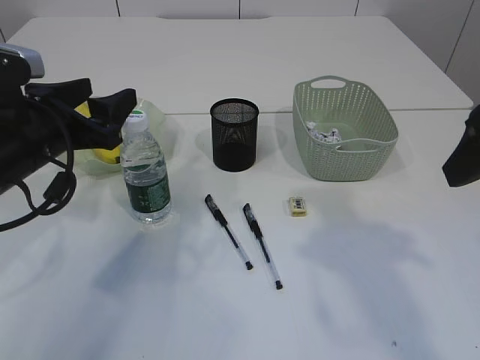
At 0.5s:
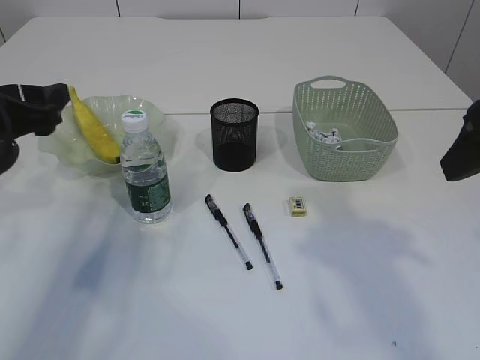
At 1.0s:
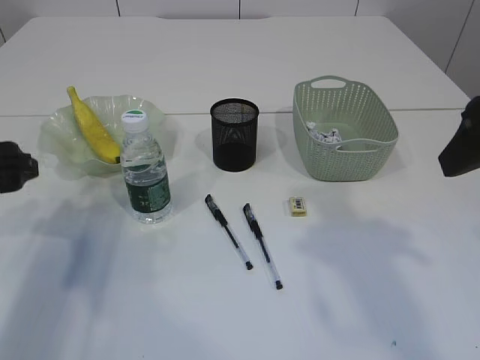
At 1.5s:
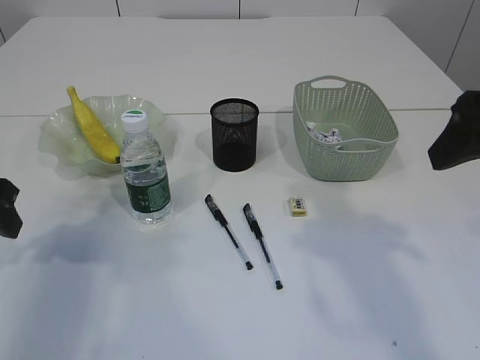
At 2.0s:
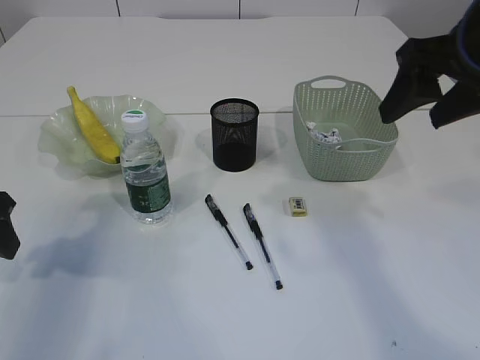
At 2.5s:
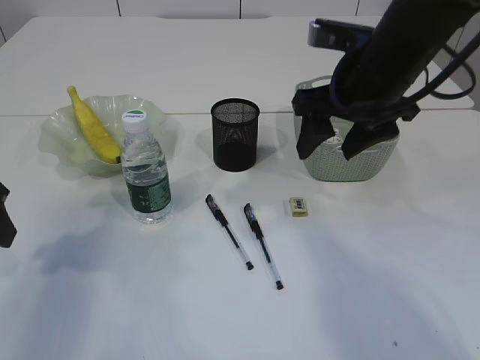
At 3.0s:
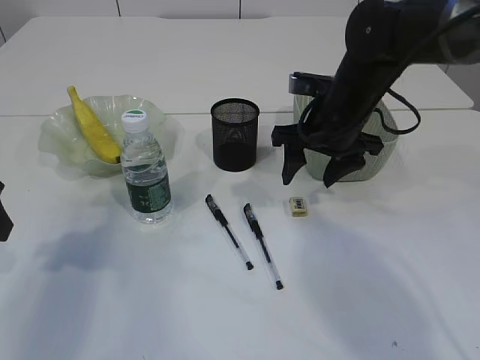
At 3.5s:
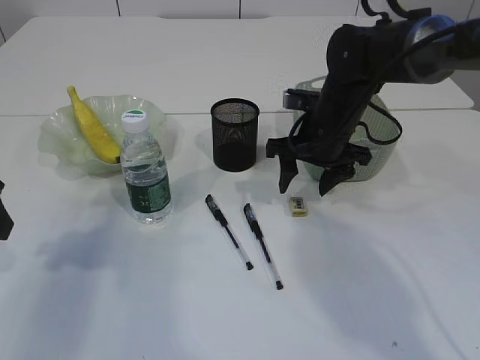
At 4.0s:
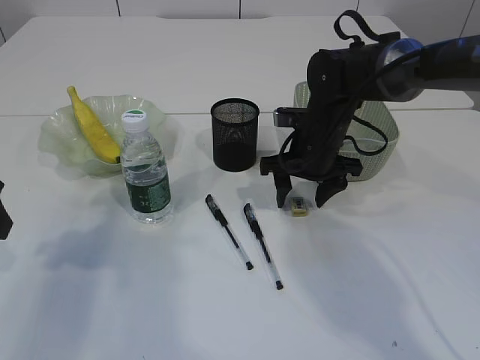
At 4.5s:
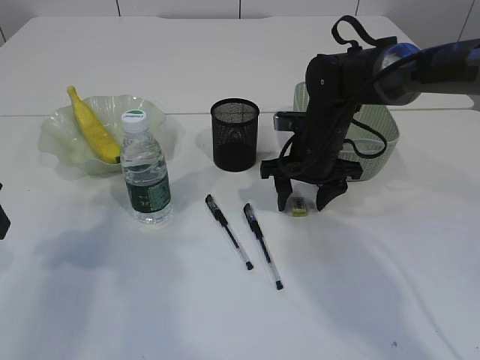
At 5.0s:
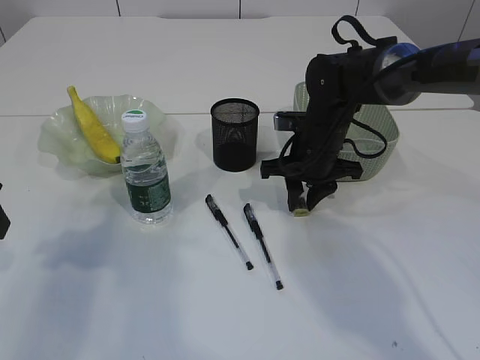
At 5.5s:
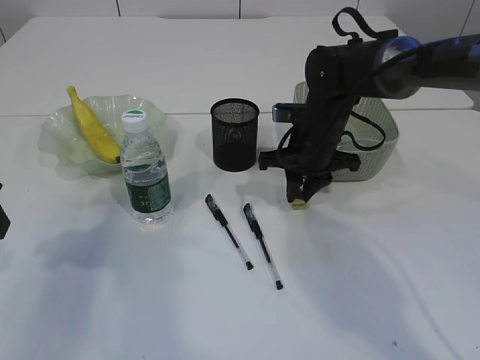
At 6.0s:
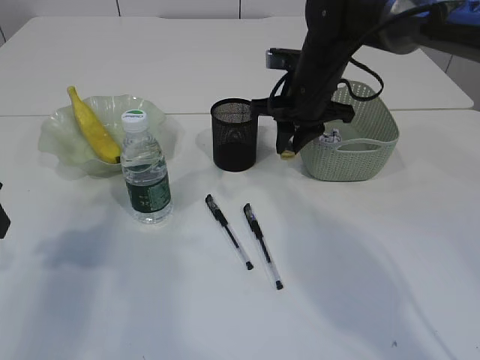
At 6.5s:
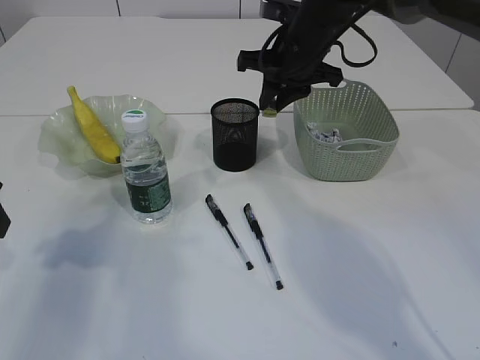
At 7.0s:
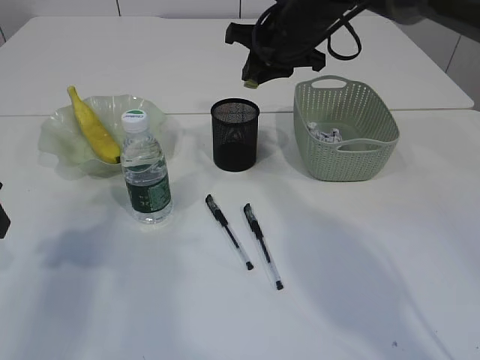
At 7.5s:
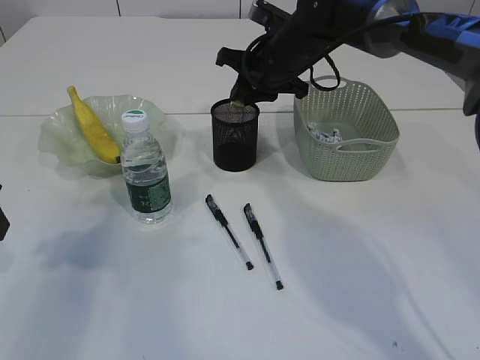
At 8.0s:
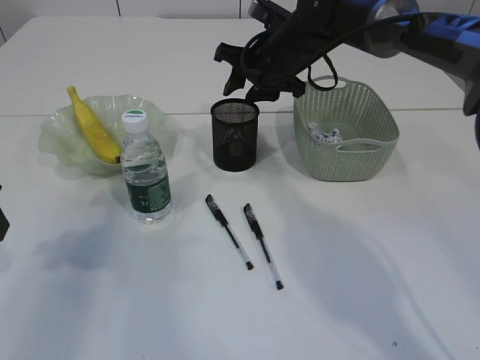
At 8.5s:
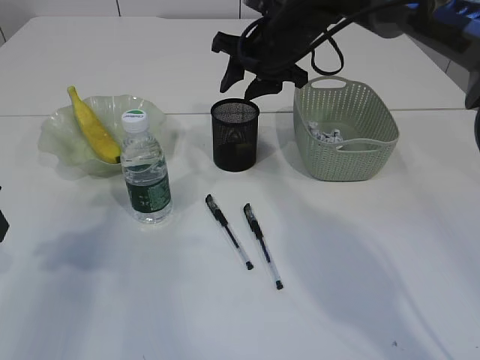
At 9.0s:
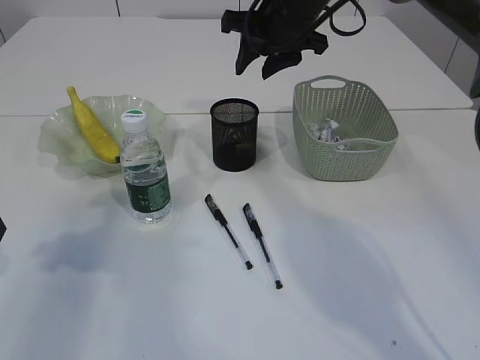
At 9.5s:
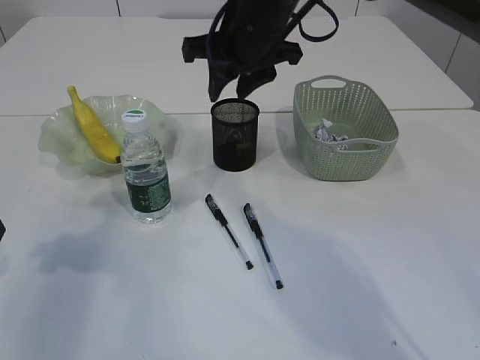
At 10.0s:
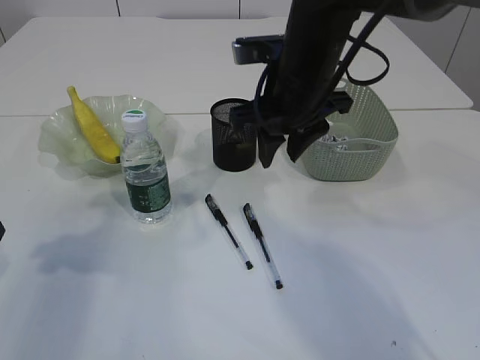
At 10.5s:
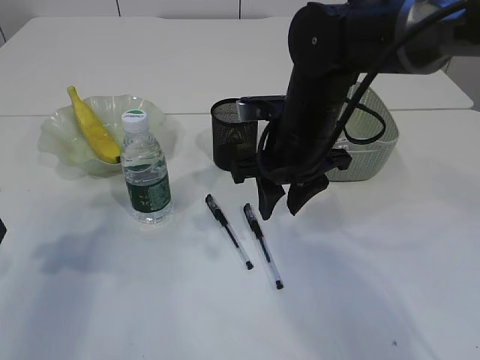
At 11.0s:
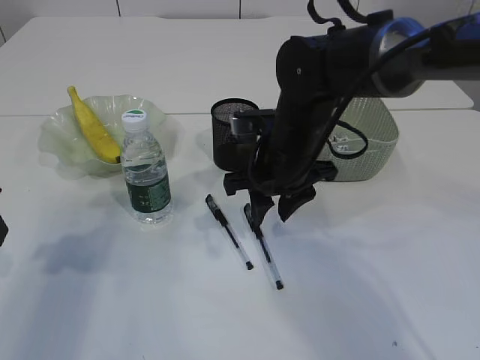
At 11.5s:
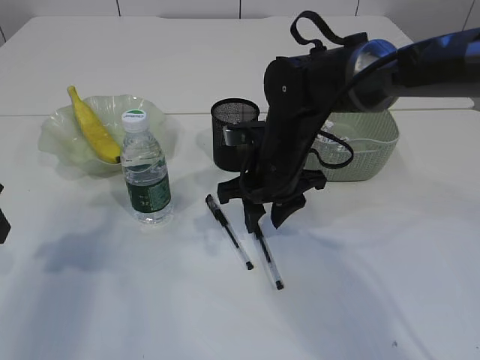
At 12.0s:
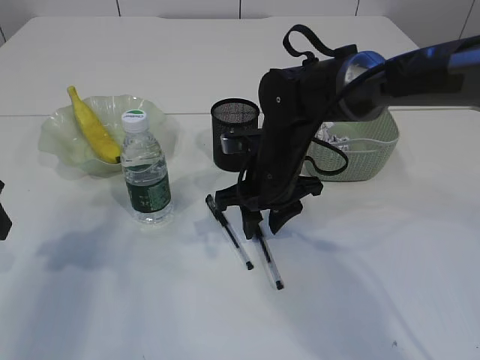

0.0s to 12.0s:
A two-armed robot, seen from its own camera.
Step, 0.0s to 5.5s: Pick up the eraser.
Step, 6.0s to 8.5s: Place the eraser into the pen holder.
0.0s to 2.0s: The left gripper moves to the left, about 10 cm. The right gripper goes some 5 cm forward.
2.0s to 4.0s: The right gripper moves downward, forward and to the left, about 25 cm.
4.0s to 6.0s: The right gripper moves upward, some 5 cm, and closes.
6.0s to 8.0s: The right gripper moves some 5 cm.
8.0s to 10.0s: The right gripper is displaced backward by approximately 10 cm.
10.0s to 12.0s: The right gripper moves downward, some 10 cm.

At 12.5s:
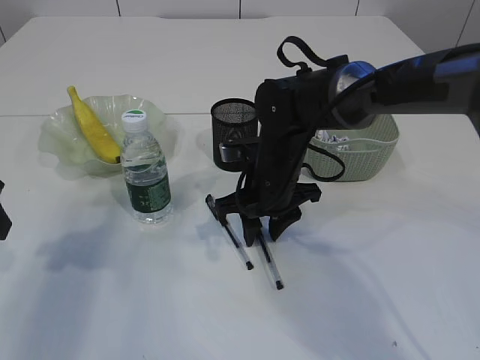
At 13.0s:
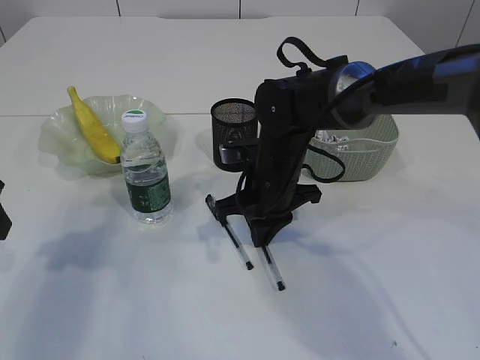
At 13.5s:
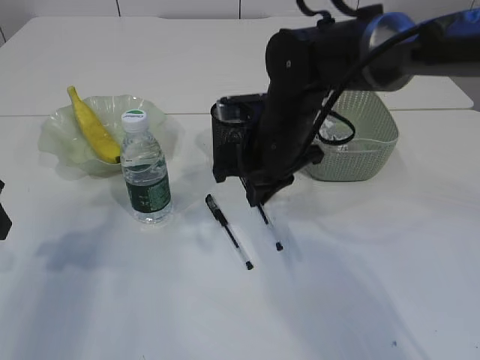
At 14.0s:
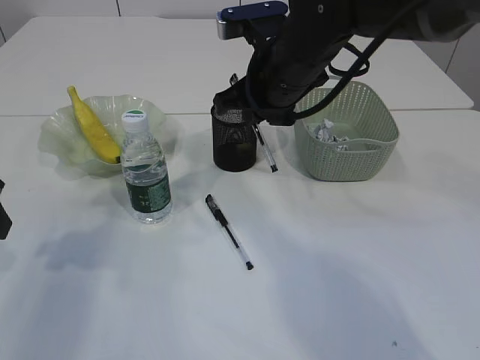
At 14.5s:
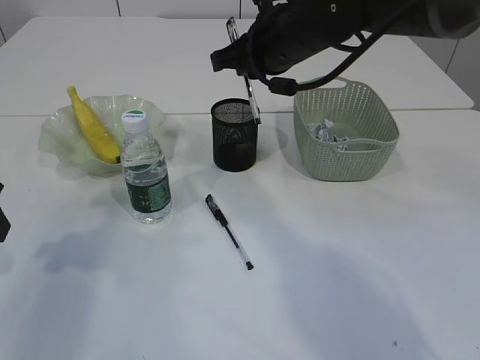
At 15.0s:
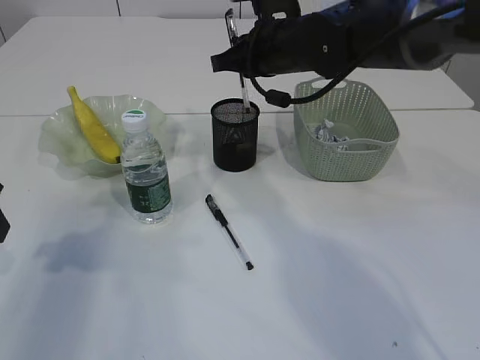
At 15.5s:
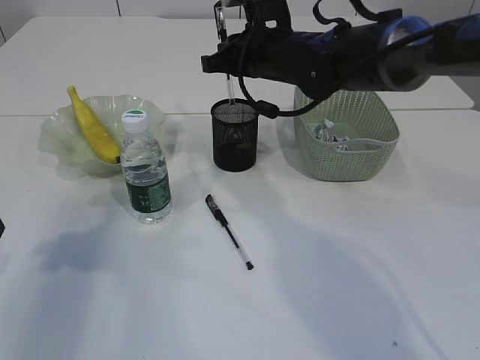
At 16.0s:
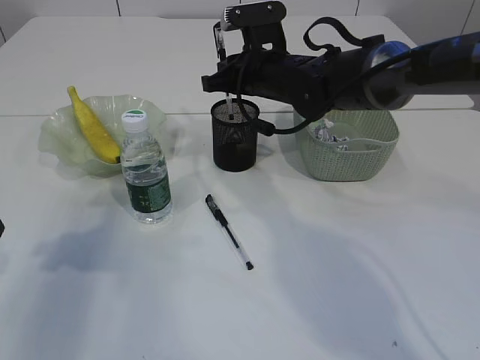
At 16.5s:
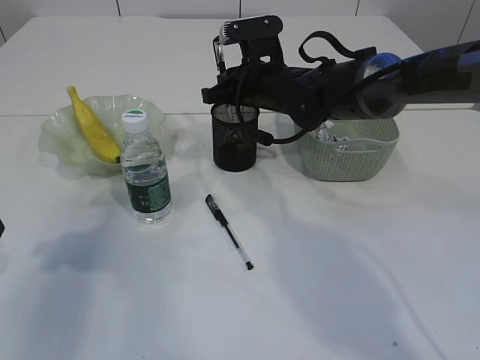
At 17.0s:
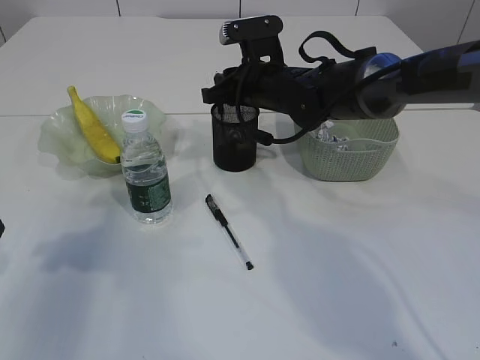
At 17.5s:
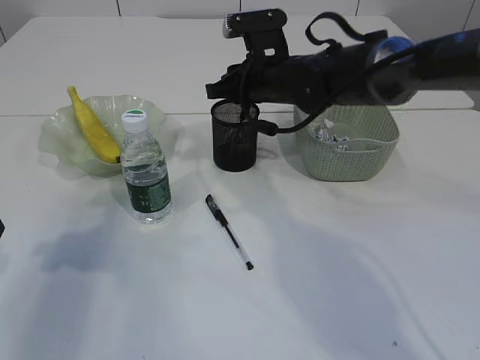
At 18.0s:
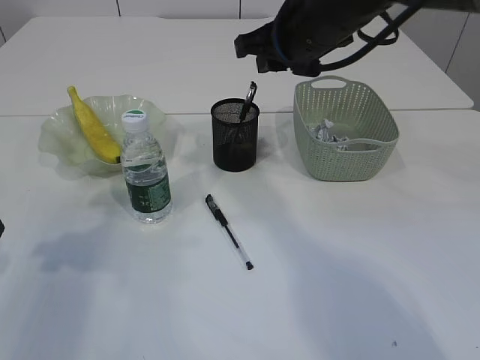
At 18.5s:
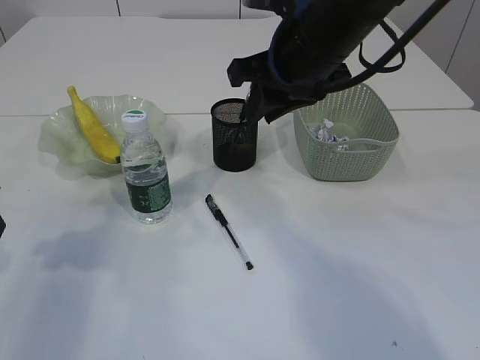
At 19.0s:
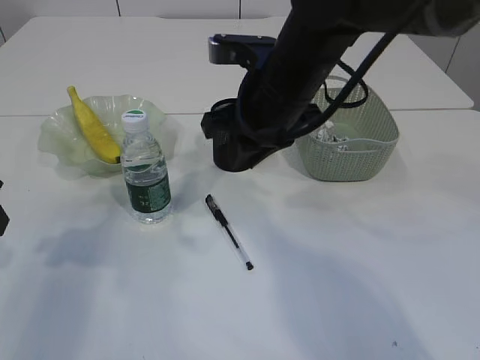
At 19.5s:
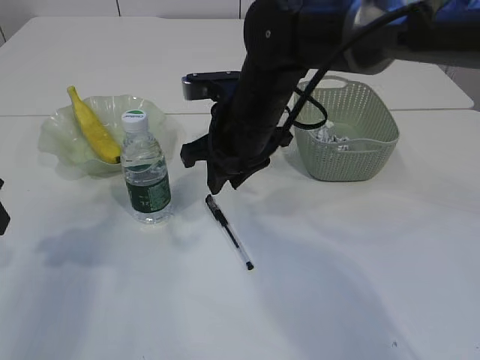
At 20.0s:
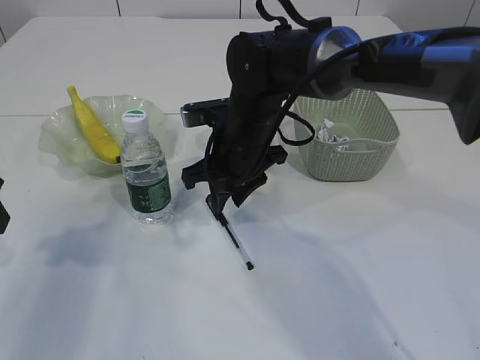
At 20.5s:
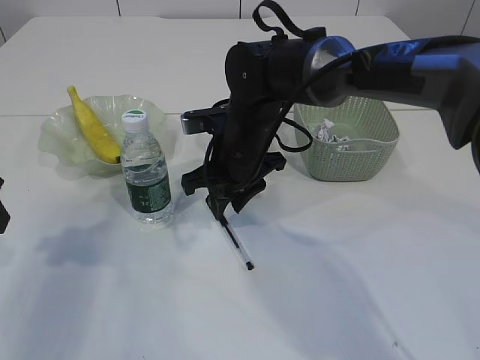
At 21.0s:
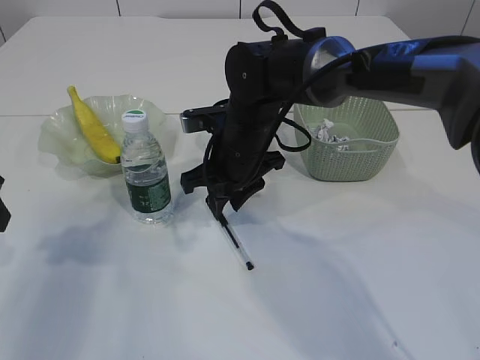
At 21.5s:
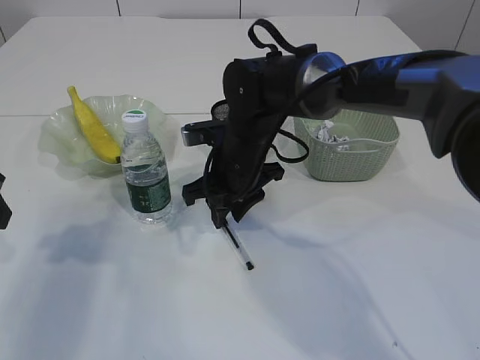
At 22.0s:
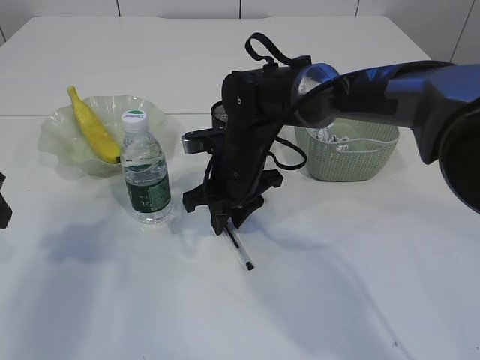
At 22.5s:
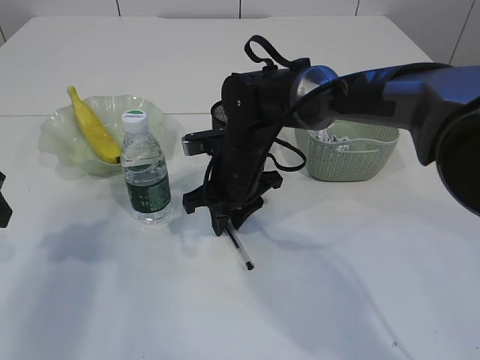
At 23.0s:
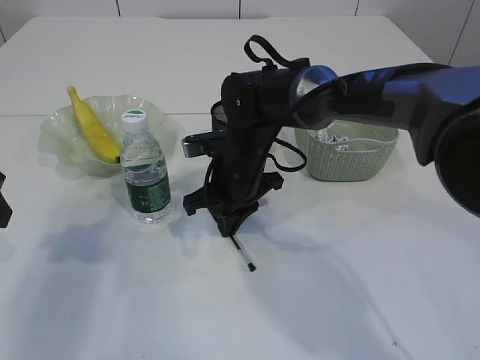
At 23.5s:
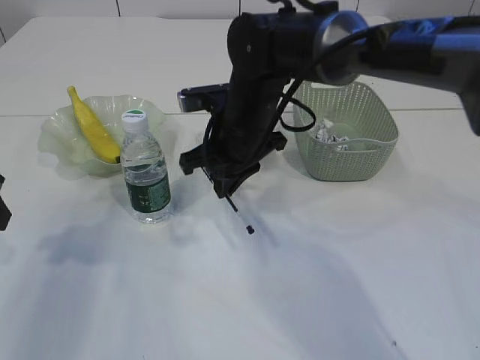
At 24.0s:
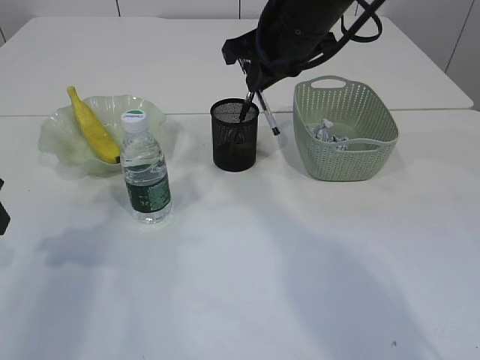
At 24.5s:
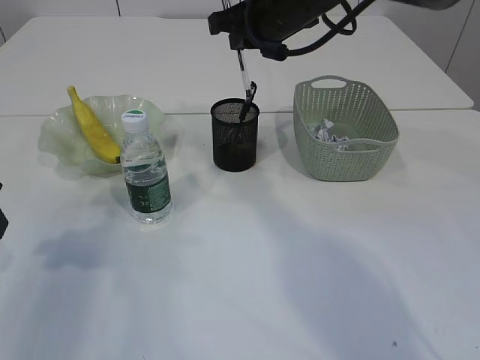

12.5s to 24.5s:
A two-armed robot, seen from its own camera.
Step, 14.0s to 17.5s: Place the pen into the pen holder.
Step, 18.0s to 23.5s: Pick up the pen with right arm.
12.5s to 14.5s: The right gripper shifts some 15 cm upward, and closes its fingers.
14.5s to 16.5s: The right gripper moves downward and forward, roughly 10 cm.
16.5s to 18.5s: The right gripper travels upward and backward by some 15 cm.
18.5s to 20.5s: The right gripper is displaced downward and to the left by roughly 15 cm.
20.5s to 22.5s: The grippers move only a little.
22.5s to 24.5s: The right gripper goes about 20 cm upward, and closes.

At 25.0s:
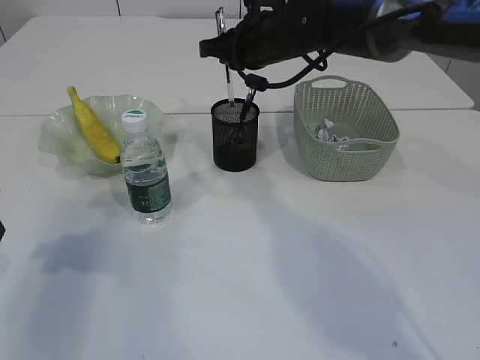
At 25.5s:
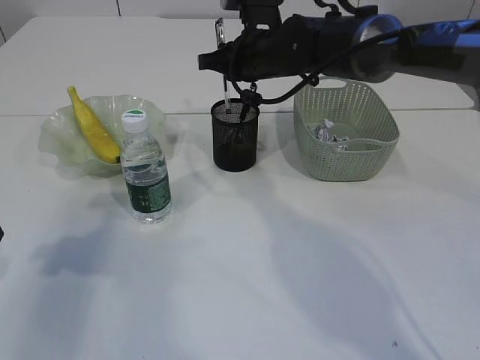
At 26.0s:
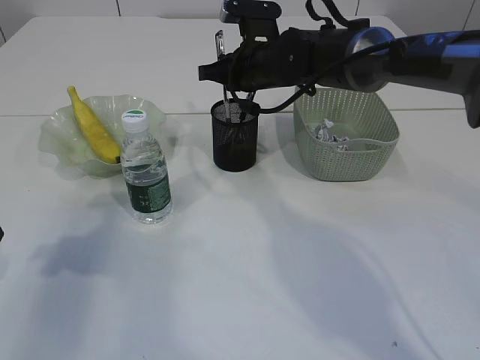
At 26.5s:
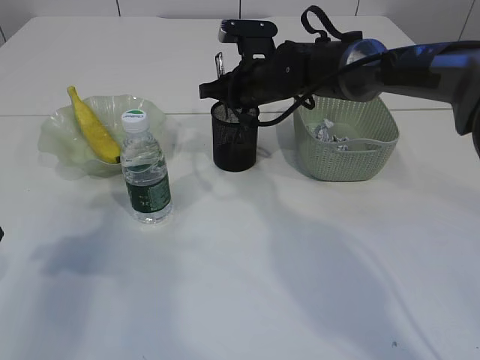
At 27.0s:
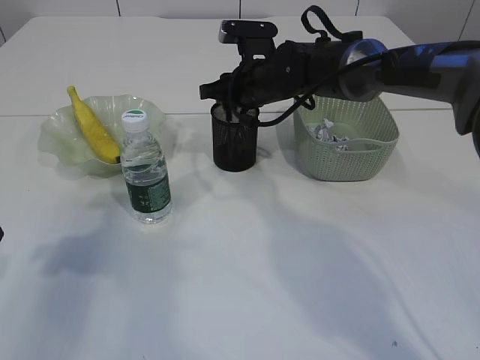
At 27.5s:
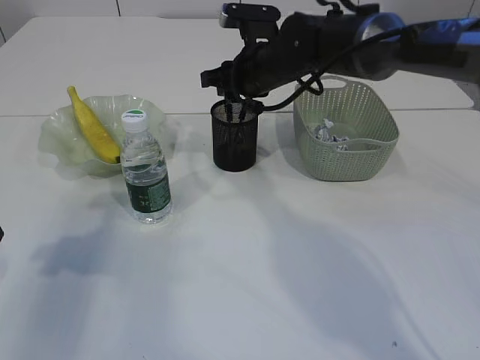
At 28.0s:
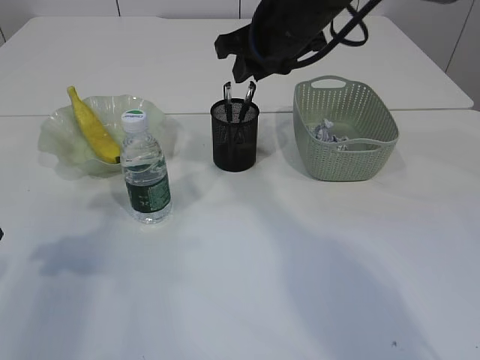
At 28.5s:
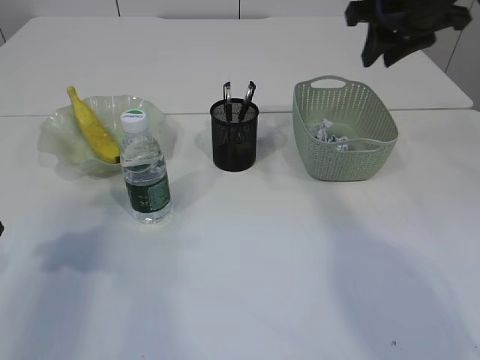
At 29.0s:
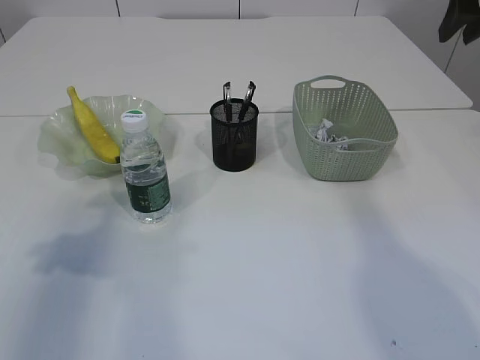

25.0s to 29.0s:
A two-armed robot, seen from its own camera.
Step, 25.0s to 28.0s: Place the pen into the pen holder.
25.0s to 27.0s: The right gripper is displaced downward by about 5 cm, and opens its fingers.
27.0s to 29.0s: The right gripper travels to the right, upward and backward by some 30 cm.
